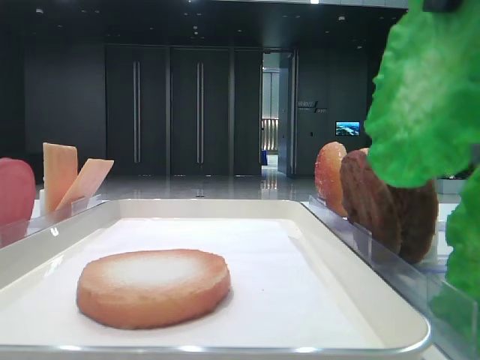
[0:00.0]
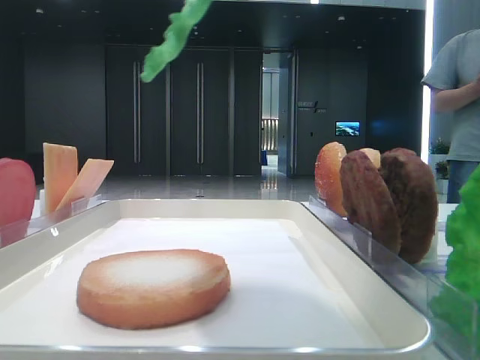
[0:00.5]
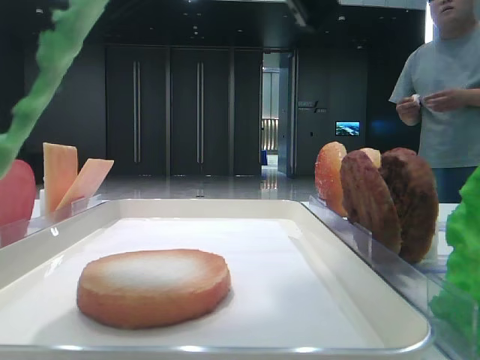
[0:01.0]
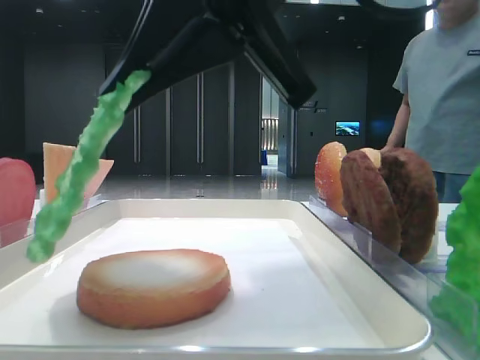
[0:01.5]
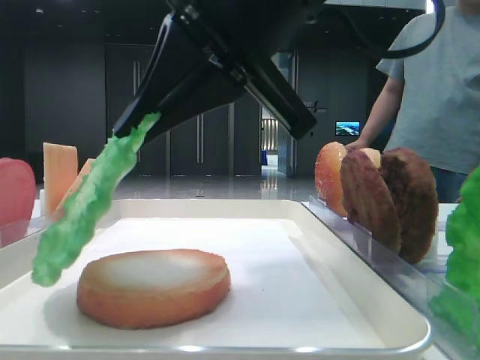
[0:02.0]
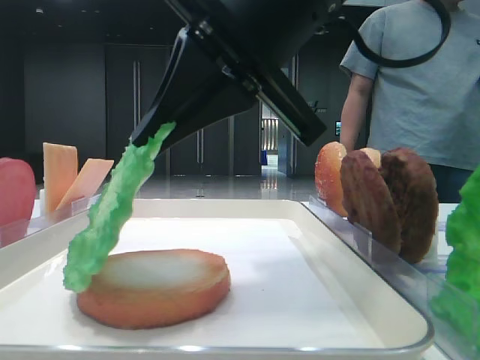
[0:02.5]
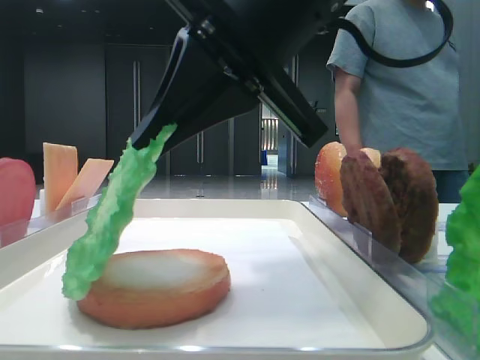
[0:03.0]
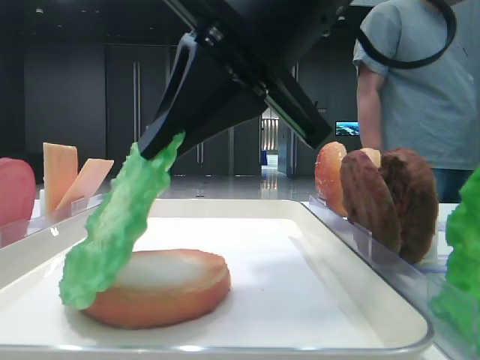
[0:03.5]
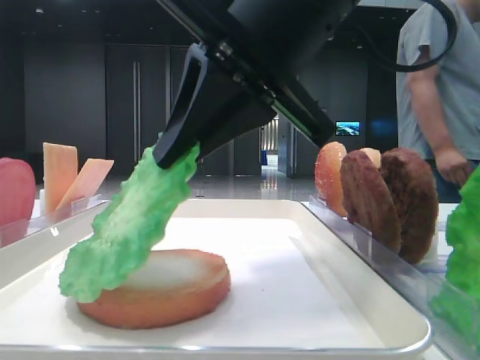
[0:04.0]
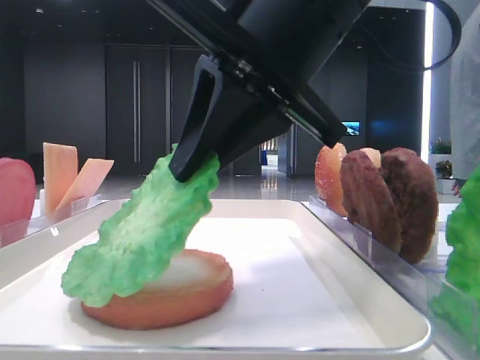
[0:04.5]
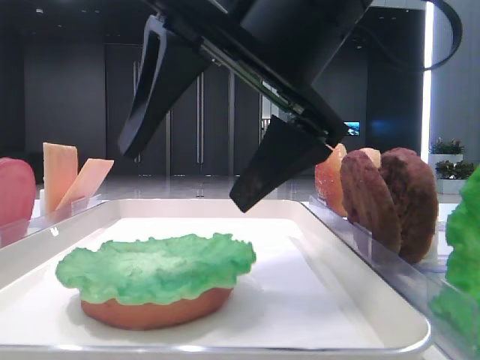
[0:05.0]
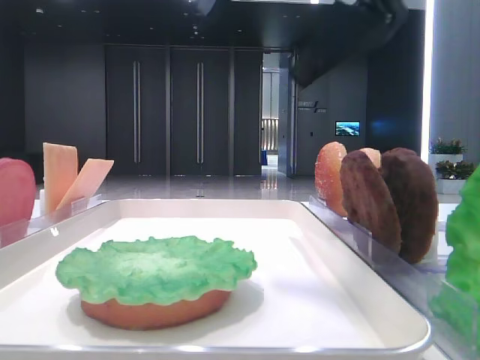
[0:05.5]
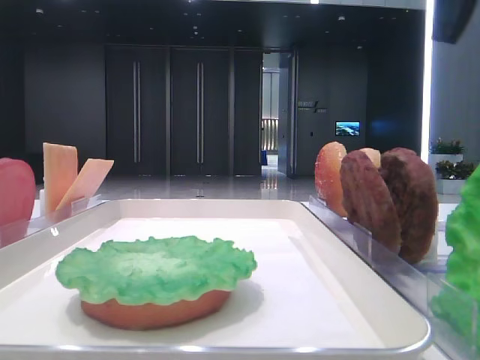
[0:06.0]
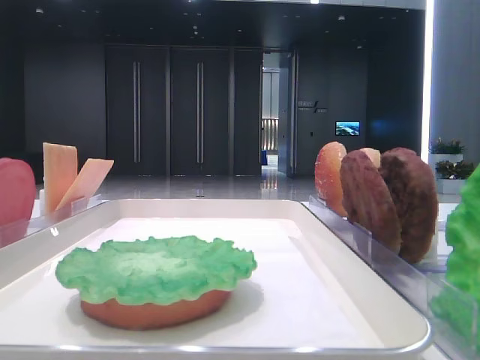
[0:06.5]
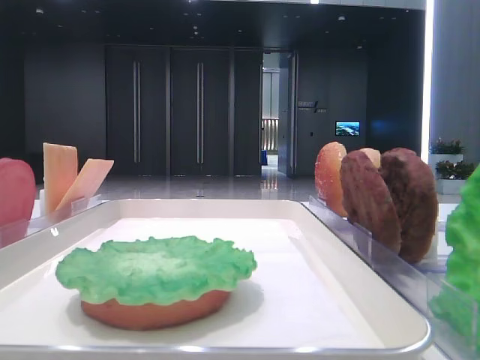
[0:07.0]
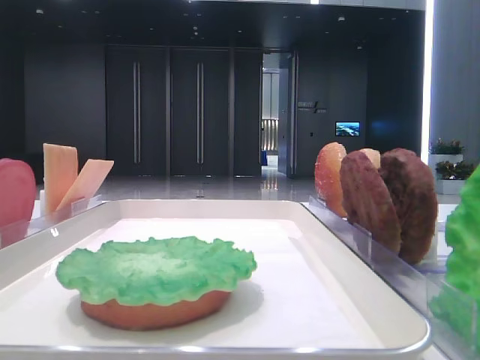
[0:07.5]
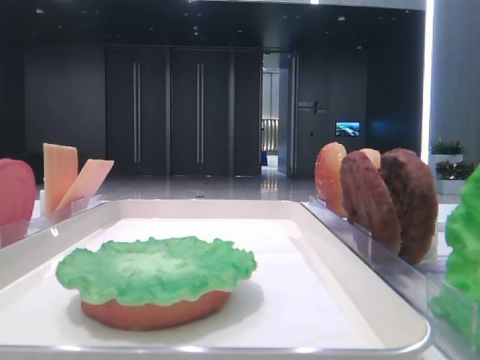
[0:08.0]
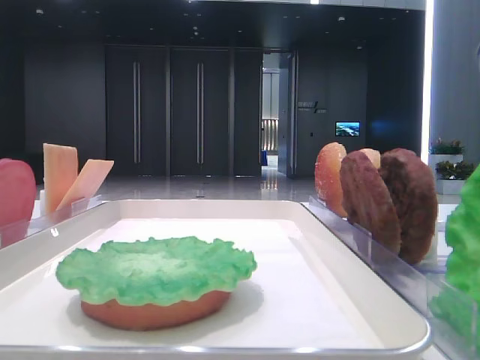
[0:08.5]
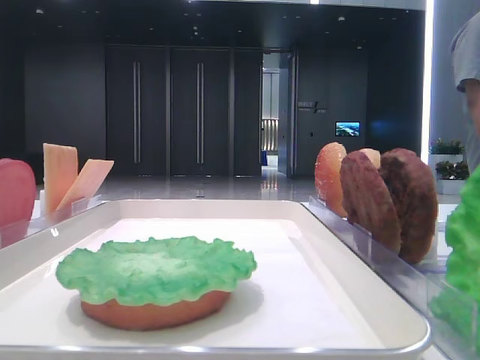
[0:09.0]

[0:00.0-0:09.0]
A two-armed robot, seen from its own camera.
Step, 0:00.0 to 0:04.5: Place the lettuce leaf on the bottom bread with the right hand.
0:00.0 to 0:02.0: The right gripper moves to the left, downward and forward, some 15 cm. The left gripper closes up.
0:04.5 to 0:07.0: The right gripper shifts approximately 30 cm to the right, upward and backward, and opens its fingers.
0:07.0 to 0:09.0: The right gripper shifts some 15 cm backward.

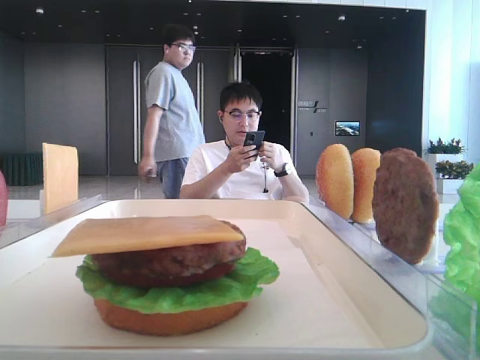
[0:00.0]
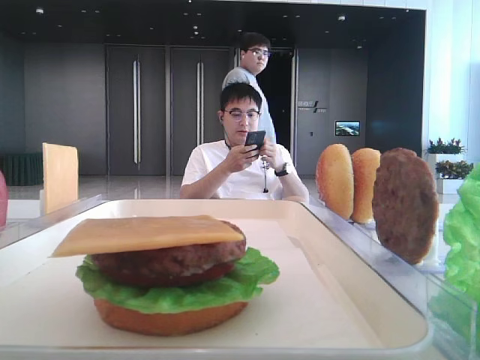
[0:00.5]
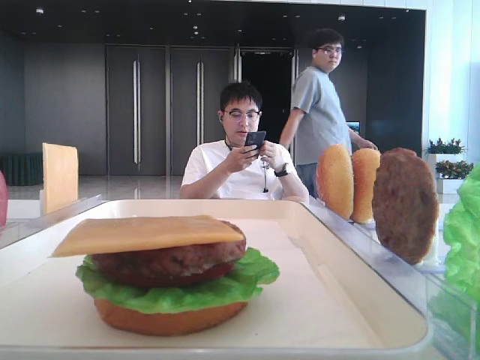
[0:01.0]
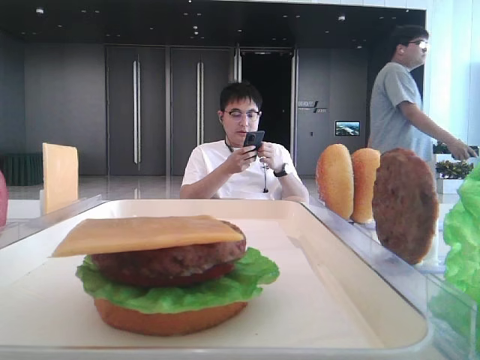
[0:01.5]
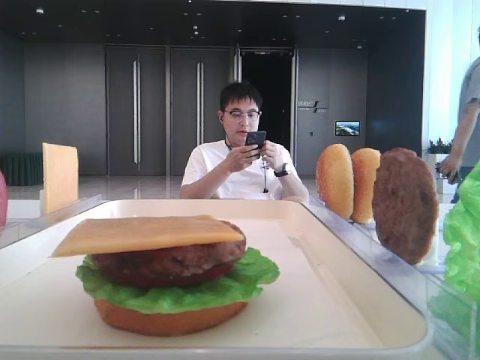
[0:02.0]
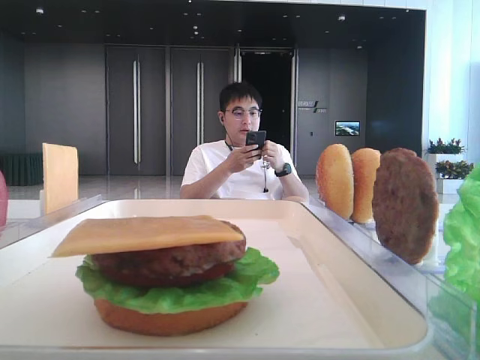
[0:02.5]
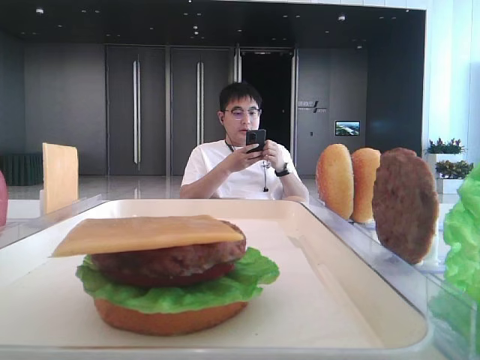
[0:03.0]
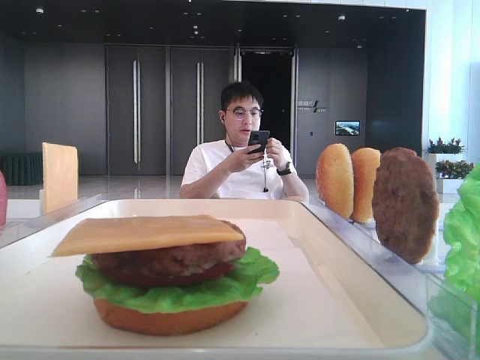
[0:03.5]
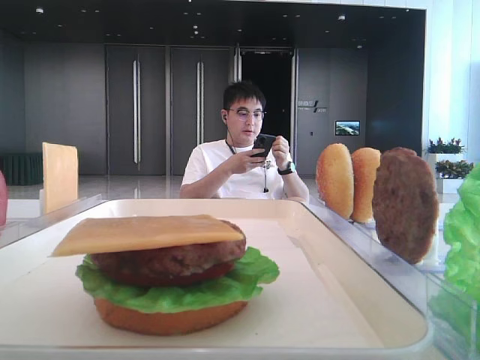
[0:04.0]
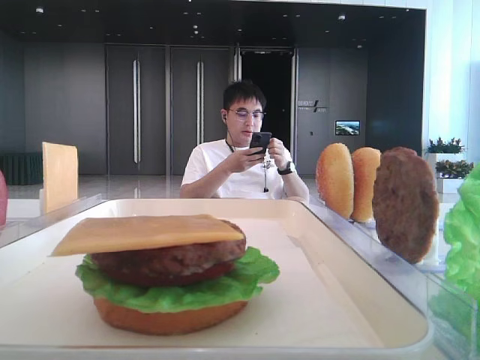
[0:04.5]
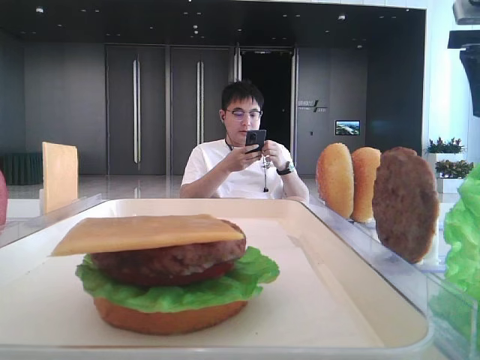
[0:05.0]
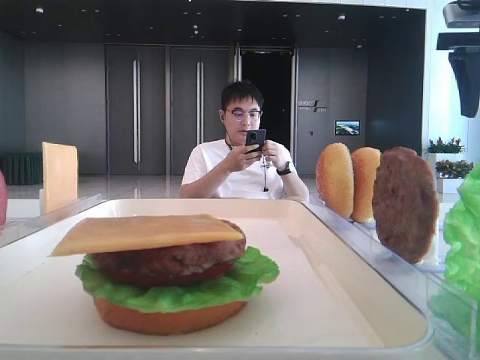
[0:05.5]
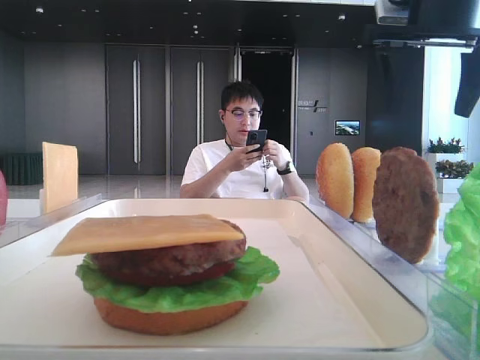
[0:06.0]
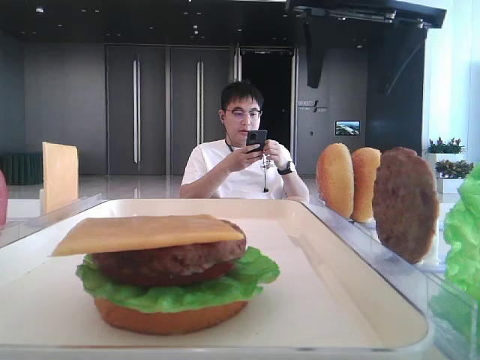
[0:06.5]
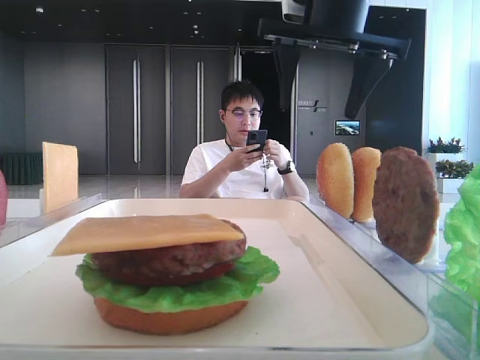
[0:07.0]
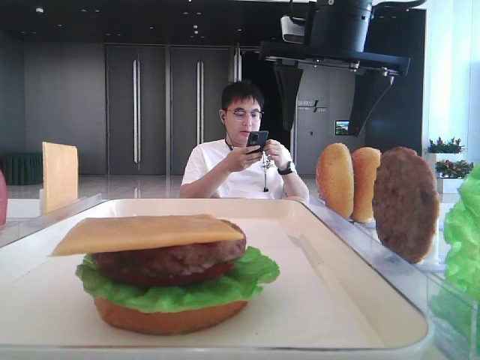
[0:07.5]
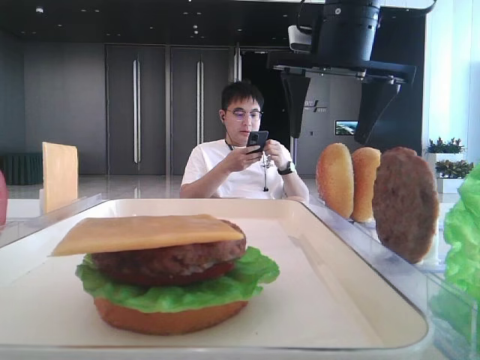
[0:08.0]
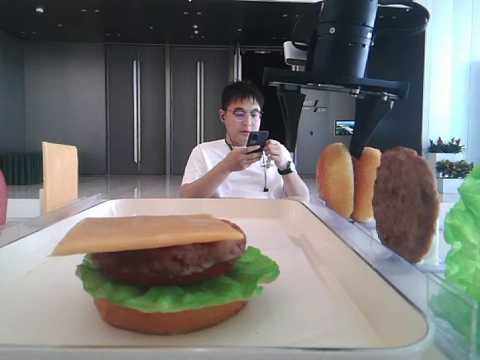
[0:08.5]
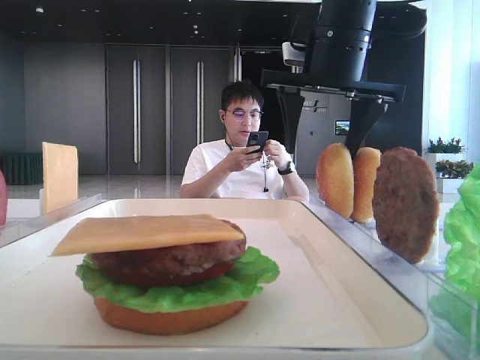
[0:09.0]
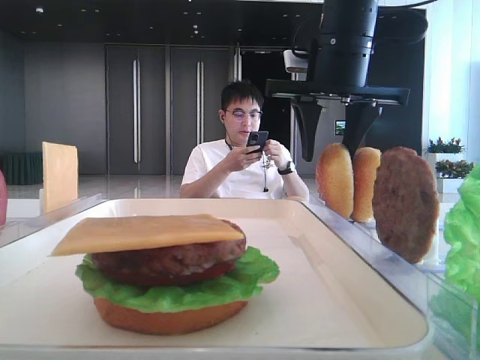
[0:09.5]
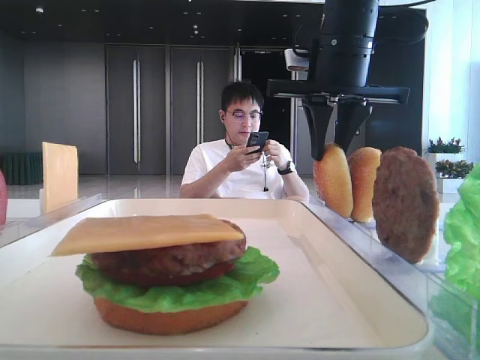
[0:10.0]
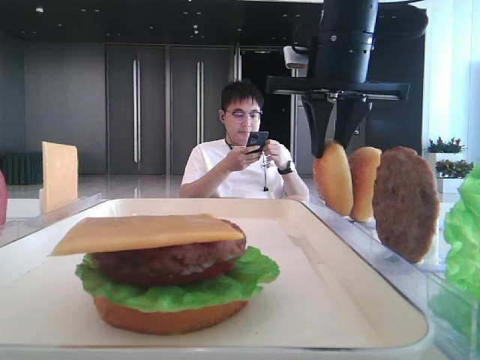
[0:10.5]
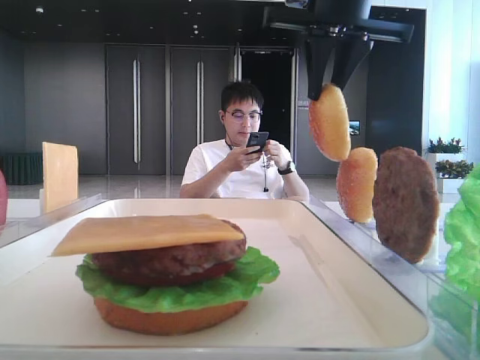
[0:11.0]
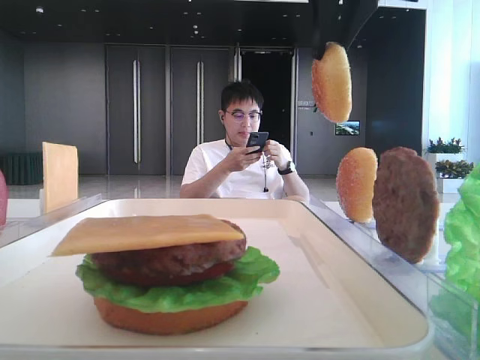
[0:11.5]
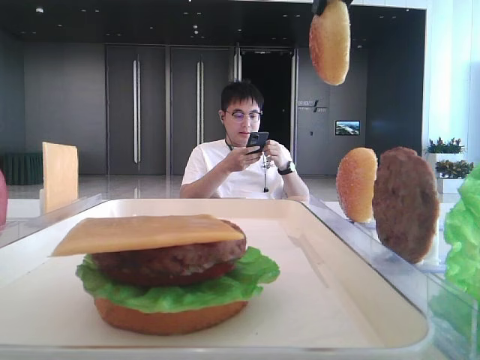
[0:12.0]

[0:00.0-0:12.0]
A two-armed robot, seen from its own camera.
Step, 0:00.0 to 0:10.0: Pick up the top bread slice with the right hand.
0:02.0 to 0:04.0: The right gripper moves forward, some 25 cm.
0:04.0 to 0:06.0: The right gripper moves forward and to the left, about 20 cm.
0:06.0 to 0:08.0: The right gripper heads to the left, covering approximately 10 cm.
0:08.0 to 0:10.0: The right gripper closes up.
0:10.0 to 0:12.0: The right gripper is displaced upward and backward by some 15 cm.

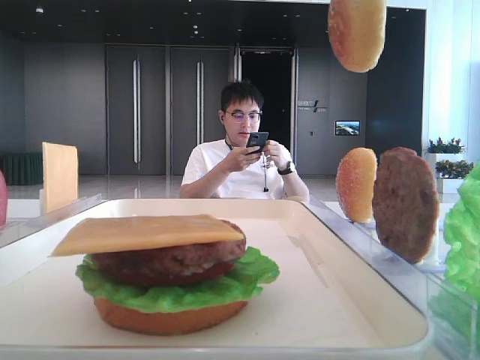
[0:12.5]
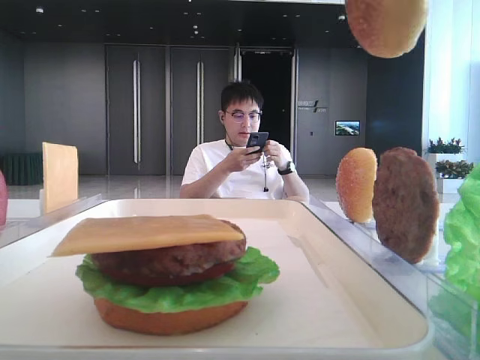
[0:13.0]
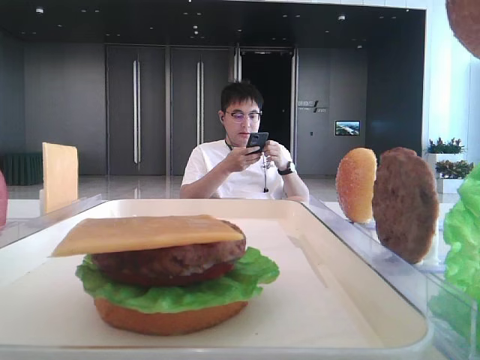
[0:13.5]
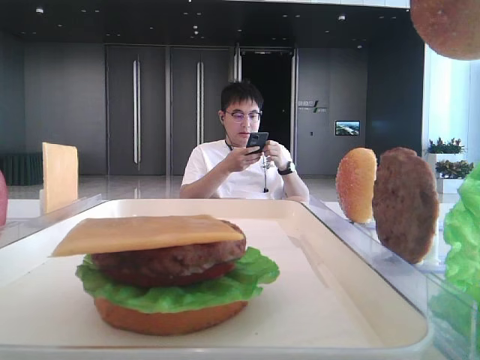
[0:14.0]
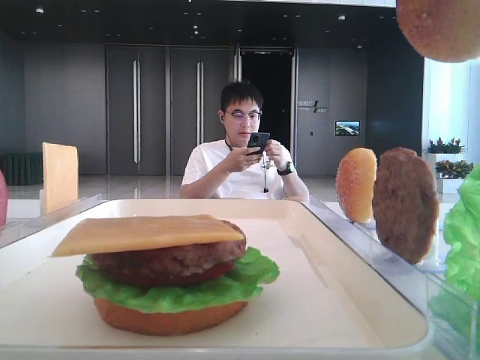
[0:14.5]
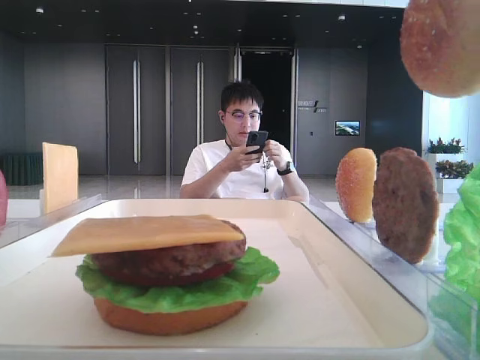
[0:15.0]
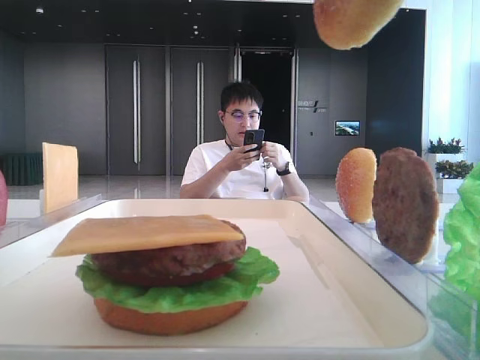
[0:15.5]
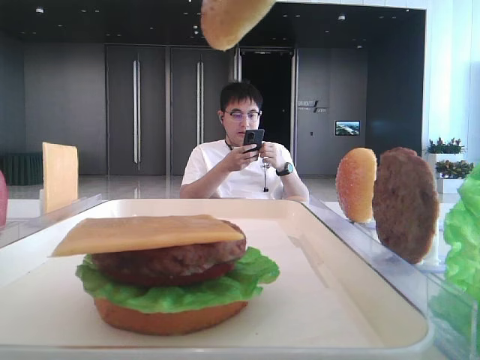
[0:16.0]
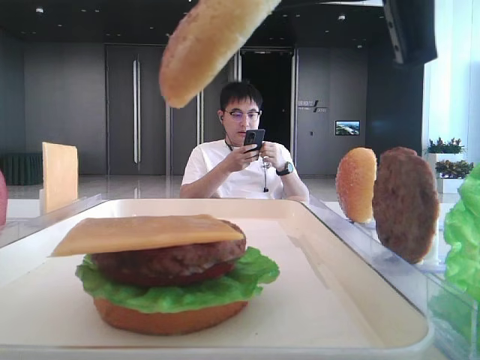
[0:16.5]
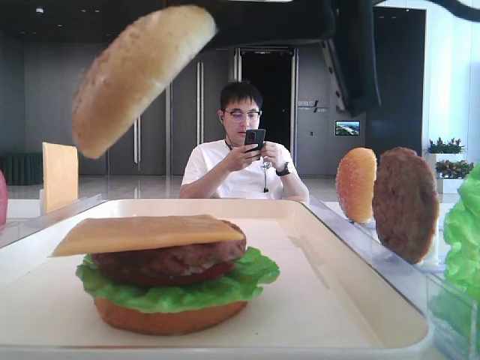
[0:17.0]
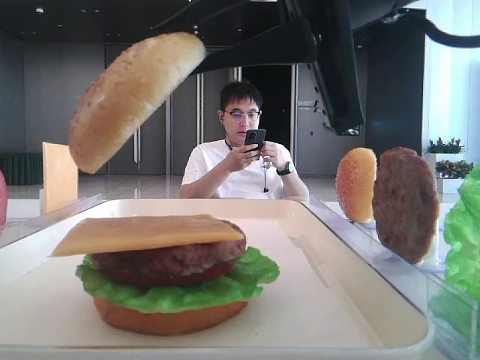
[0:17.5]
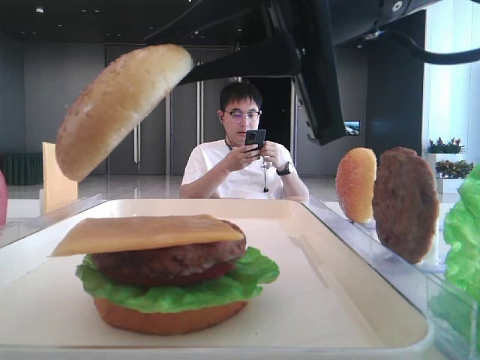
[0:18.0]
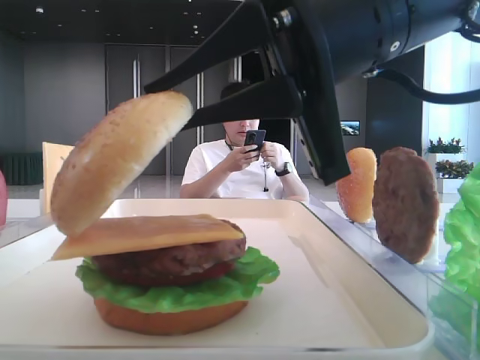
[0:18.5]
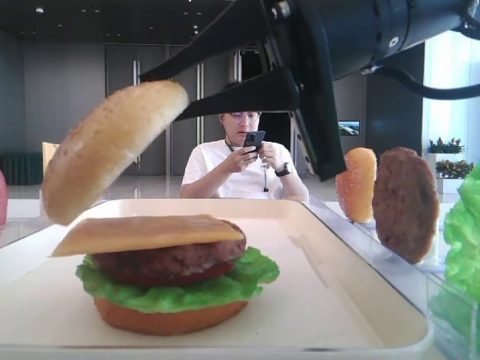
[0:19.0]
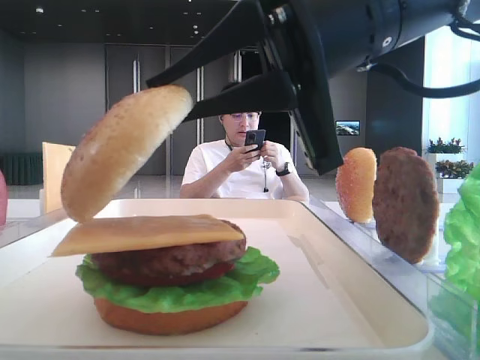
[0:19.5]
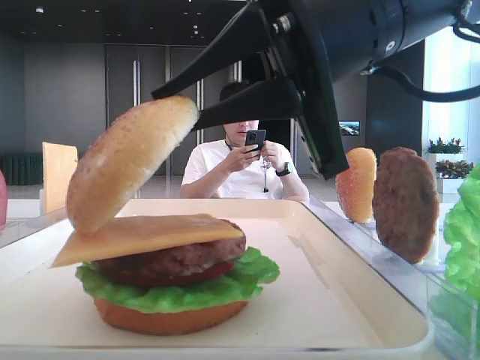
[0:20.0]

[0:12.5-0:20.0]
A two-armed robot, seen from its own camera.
0:12.5 to 0:14.5: The right gripper shifts some 15 cm backward.
0:14.5 to 0:16.5: The right gripper goes roughly 10 cm downward and forward.
0:16.5 to 0:18.0: The right gripper is displaced to the left by roughly 5 cm.
0:18.0 to 0:20.0: There are only small adjustments of the grippers.
